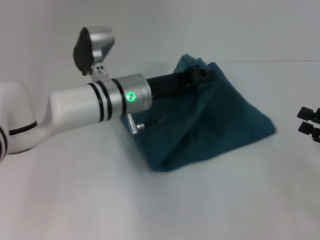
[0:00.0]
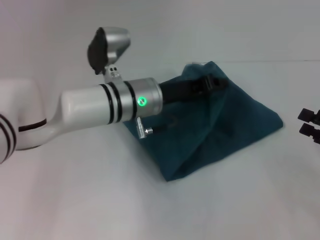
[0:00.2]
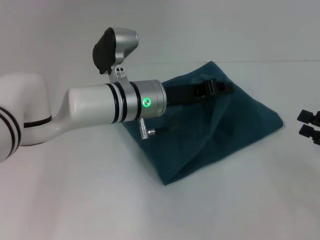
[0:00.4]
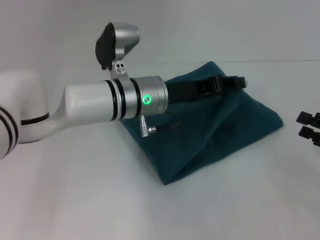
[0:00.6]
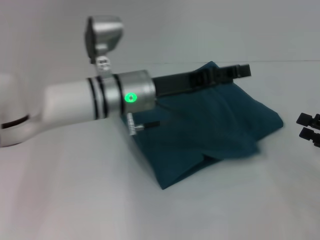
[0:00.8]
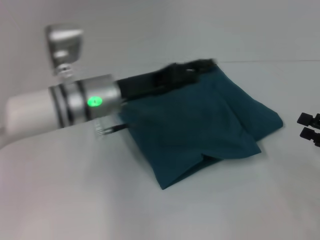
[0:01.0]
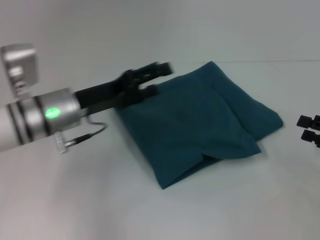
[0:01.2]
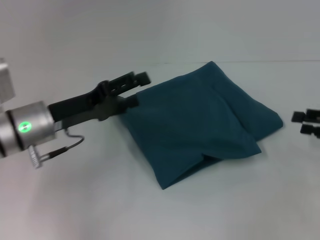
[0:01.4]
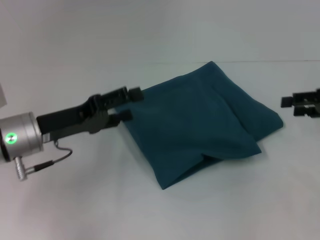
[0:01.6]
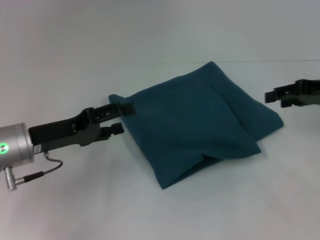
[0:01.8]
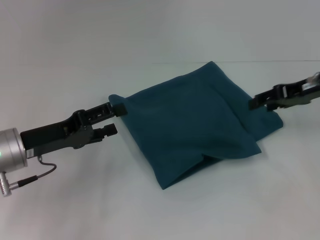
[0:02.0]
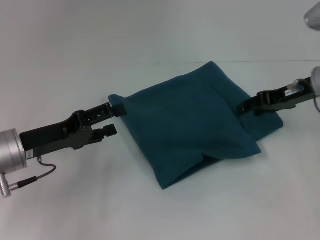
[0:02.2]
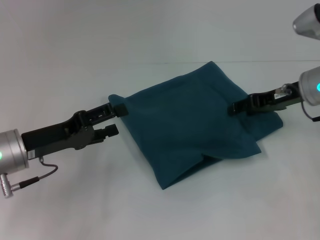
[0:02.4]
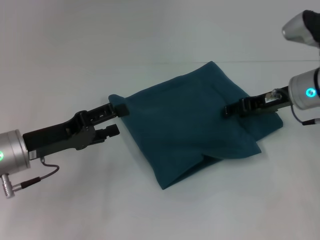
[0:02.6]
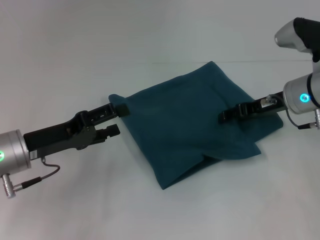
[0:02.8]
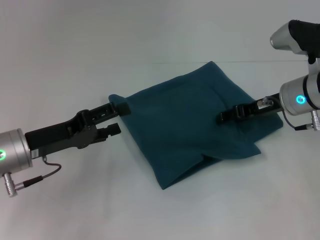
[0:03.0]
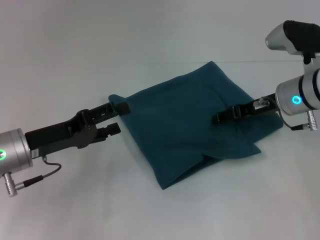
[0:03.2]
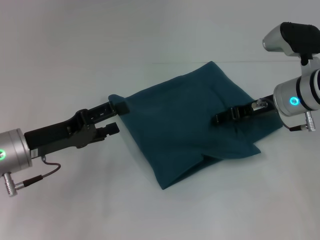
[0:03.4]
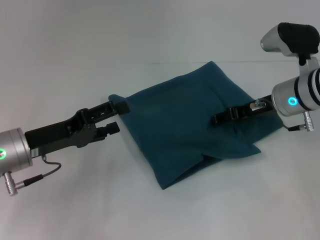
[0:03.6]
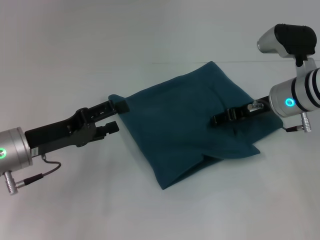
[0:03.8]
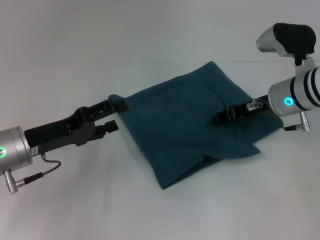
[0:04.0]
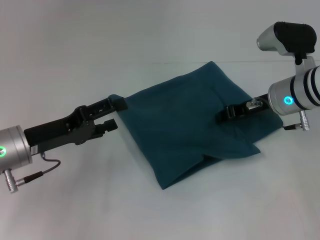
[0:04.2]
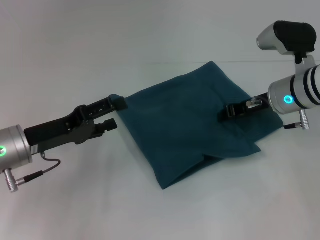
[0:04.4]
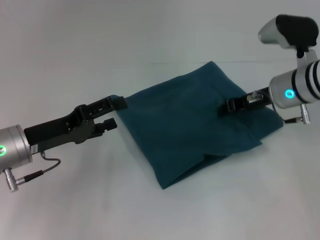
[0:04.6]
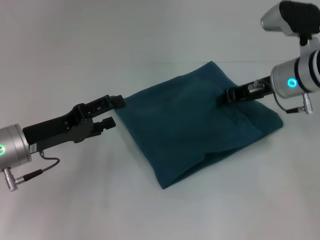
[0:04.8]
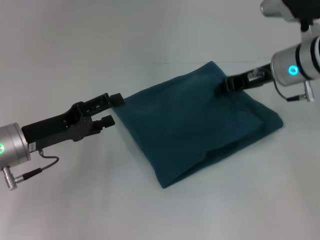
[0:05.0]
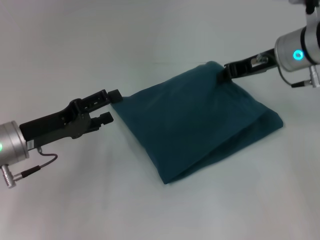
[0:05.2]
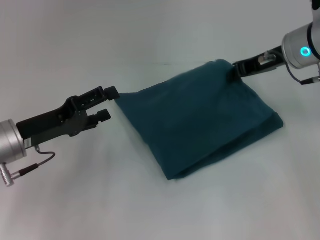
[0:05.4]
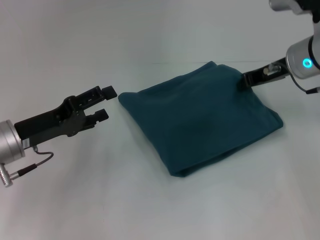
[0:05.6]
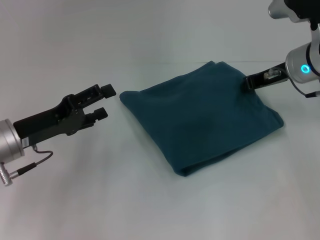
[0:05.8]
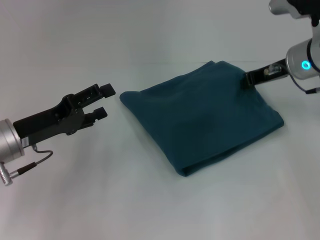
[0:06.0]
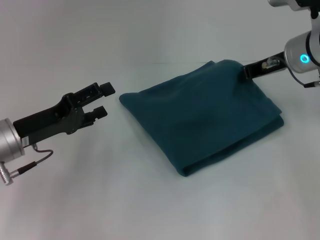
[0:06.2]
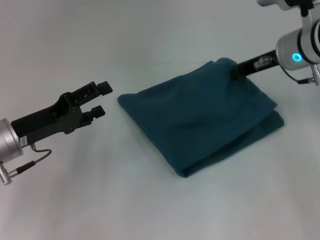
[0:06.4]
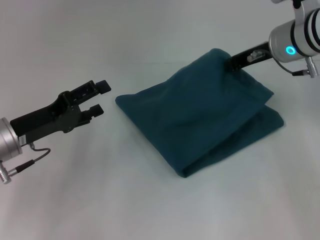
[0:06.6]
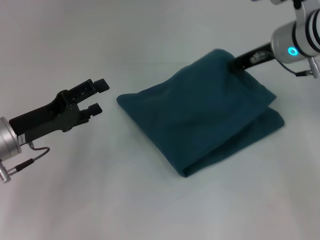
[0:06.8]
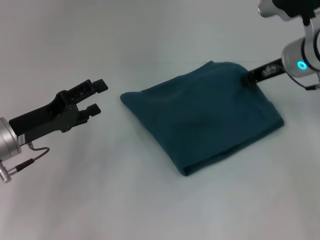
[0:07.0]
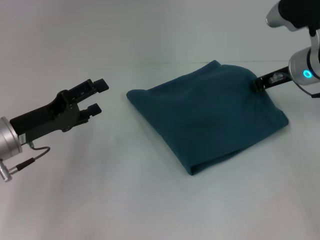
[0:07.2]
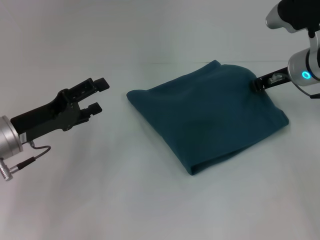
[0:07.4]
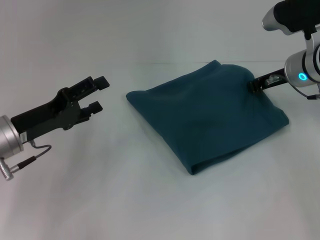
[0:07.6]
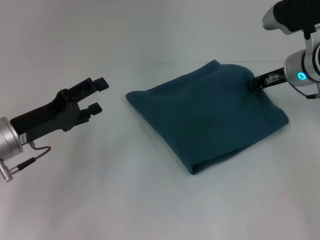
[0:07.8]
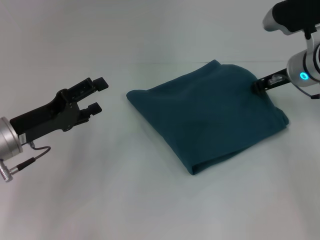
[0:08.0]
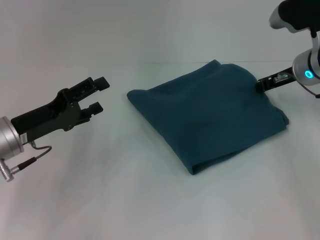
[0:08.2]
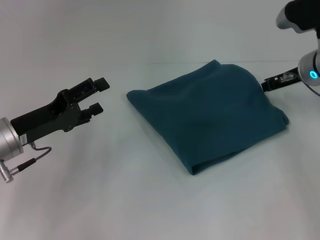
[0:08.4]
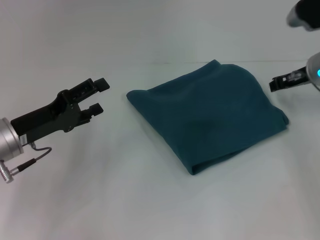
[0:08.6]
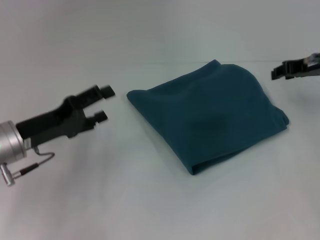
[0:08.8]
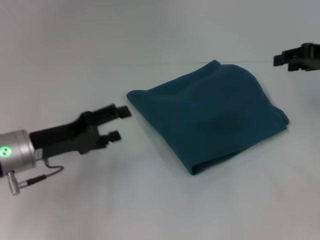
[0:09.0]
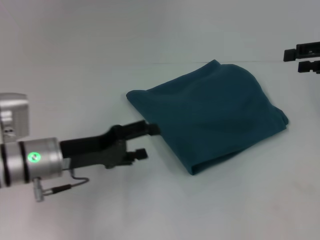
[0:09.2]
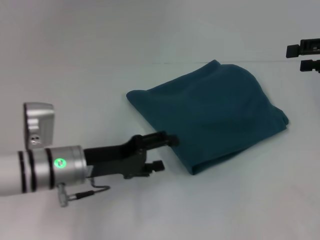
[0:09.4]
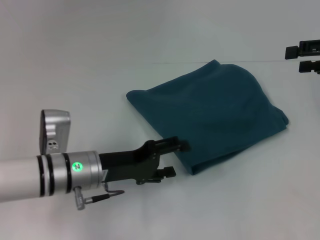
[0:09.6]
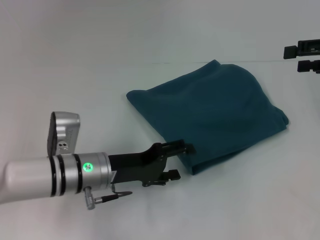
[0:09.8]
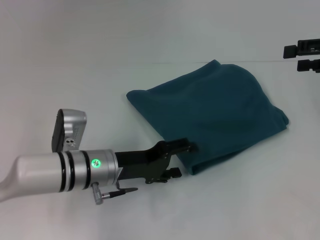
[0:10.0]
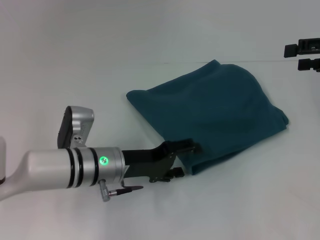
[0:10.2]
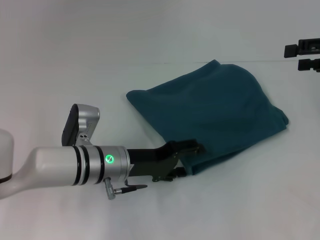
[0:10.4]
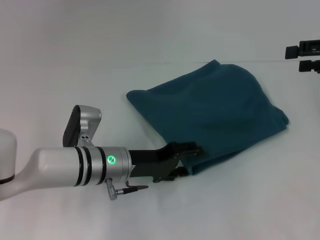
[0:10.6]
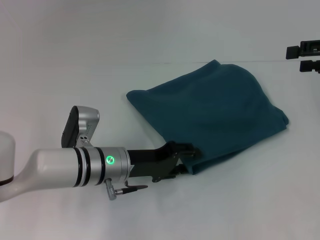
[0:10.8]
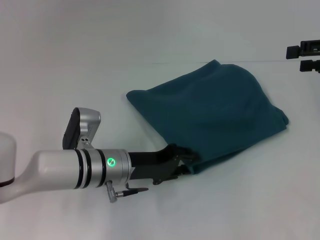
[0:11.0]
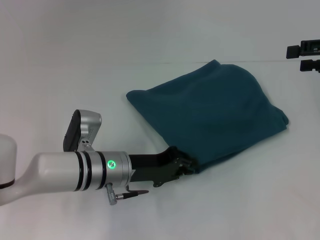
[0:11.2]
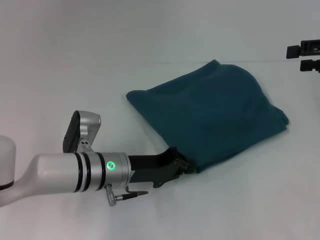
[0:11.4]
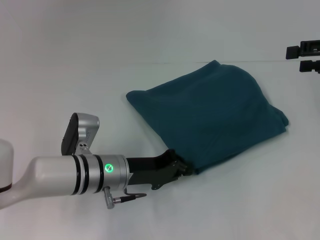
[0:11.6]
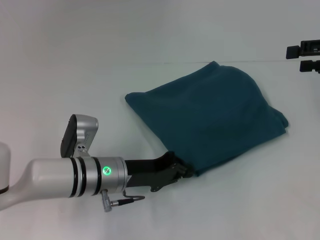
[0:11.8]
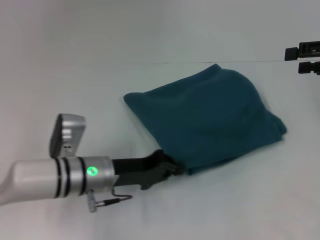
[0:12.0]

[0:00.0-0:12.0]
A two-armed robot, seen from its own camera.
0:00.0 to 0:01.6: The left gripper shifts some 15 cm to the left and backward, and opens, while the right gripper is displaced forward and upward by roughly 10 cm.
0:01.6 to 0:03.0: The right gripper is displaced to the left by approximately 15 cm.
0:03.0 to 0:04.4: The right gripper closes its fingers.
0:04.4 to 0:06.0: The right gripper shifts roughly 5 cm upward.
0:06.0 to 0:07.6: The grippers stay close to where they were, moving slightly.
0:07.6 to 0:09.0: The right gripper moves to the right and upward, approximately 10 cm, and opens up.
0:09.0 to 0:10.4: The left gripper heads to the right, covering approximately 10 cm, while the right gripper opens its fingers.
0:10.4 to 0:12.0: The left gripper closes.

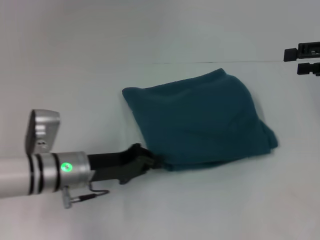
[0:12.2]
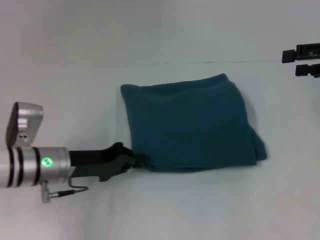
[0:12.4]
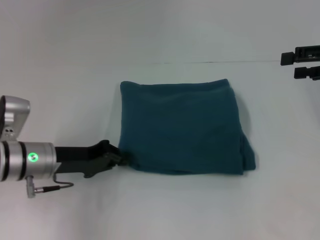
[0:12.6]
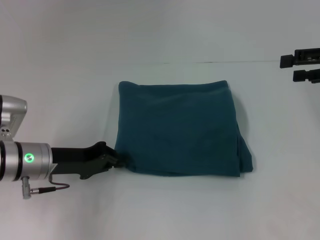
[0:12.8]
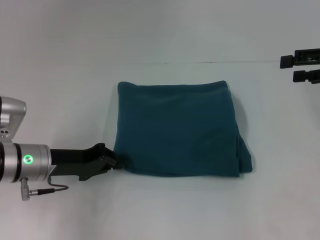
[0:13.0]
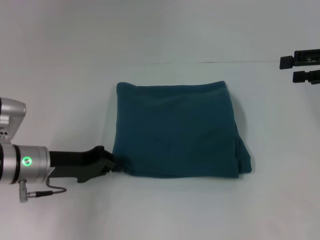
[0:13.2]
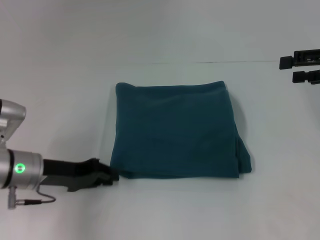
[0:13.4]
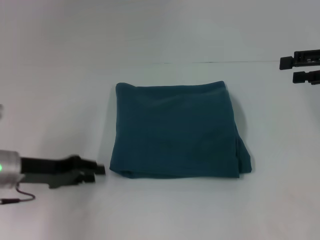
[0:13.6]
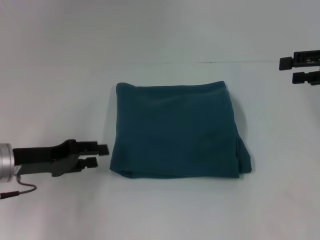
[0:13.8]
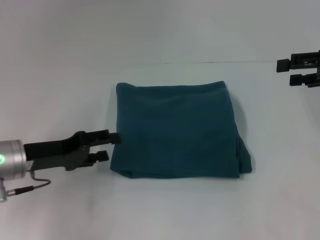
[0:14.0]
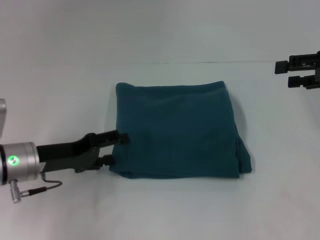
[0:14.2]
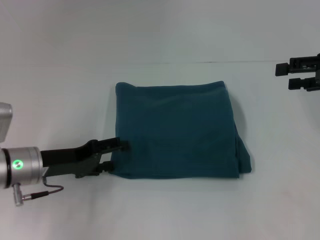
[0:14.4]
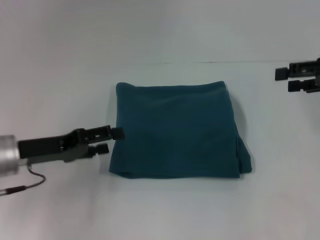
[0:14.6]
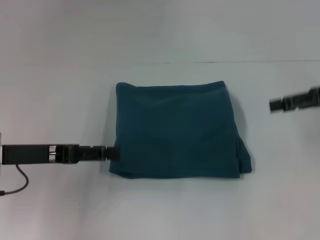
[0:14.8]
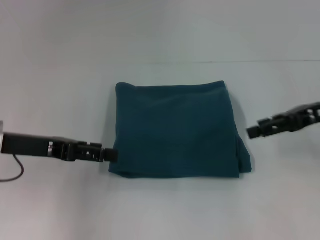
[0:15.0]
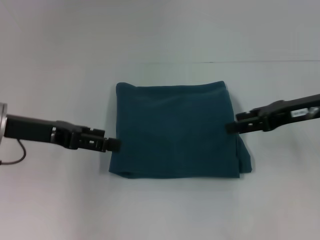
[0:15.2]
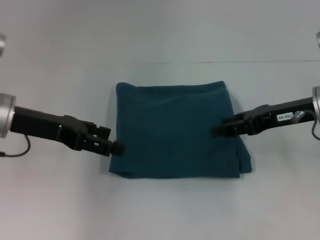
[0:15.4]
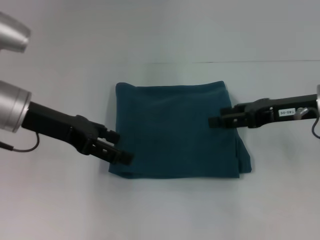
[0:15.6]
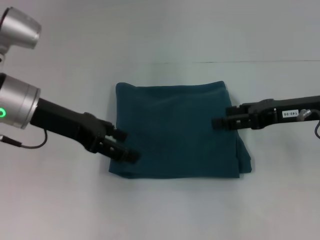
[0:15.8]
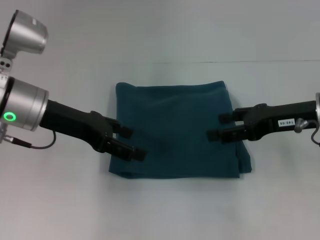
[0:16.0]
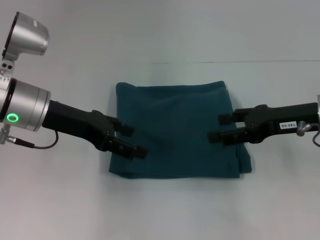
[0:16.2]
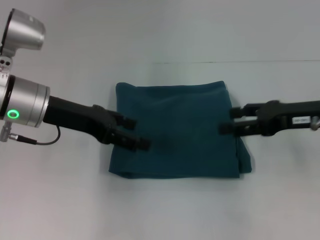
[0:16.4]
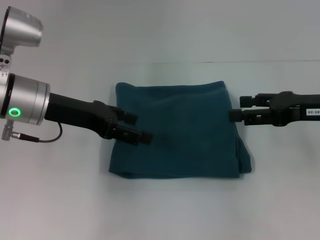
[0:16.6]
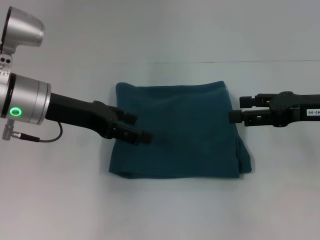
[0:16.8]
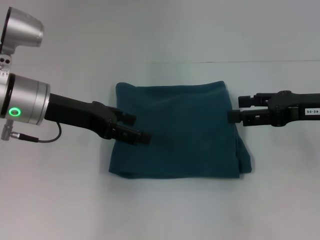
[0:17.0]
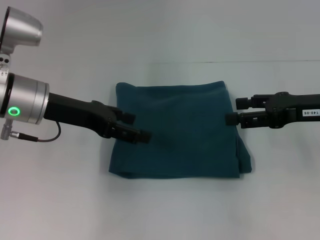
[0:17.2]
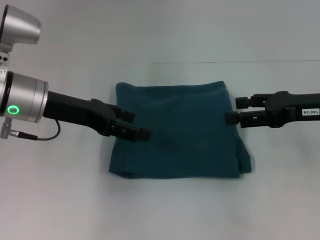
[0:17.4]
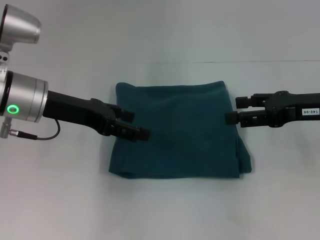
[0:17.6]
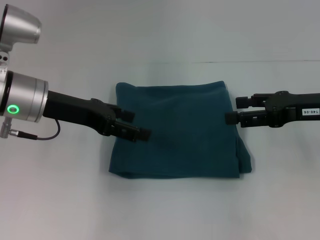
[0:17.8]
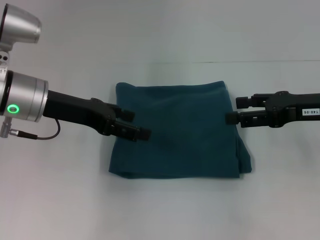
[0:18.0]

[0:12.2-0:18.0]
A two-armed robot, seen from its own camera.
0:12.2 to 0:13.6: The left gripper goes some 10 cm to the left.
0:13.6 to 0:15.0: The left gripper goes roughly 5 cm upward, and opens its fingers. Meanwhile the right gripper moves to the left, some 5 cm.
0:15.0 to 0:16.6: The left gripper shifts approximately 5 cm to the right.
0:16.6 to 0:18.0: The two grippers keep their place.
